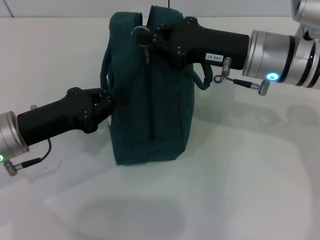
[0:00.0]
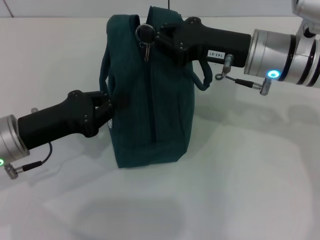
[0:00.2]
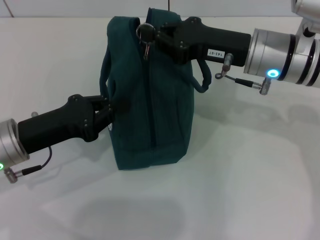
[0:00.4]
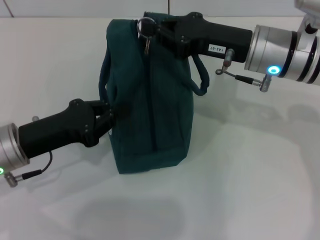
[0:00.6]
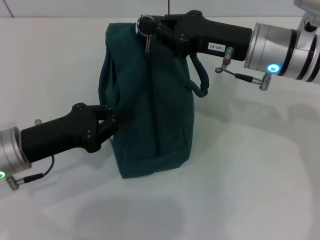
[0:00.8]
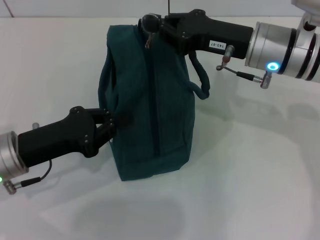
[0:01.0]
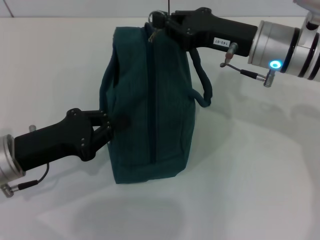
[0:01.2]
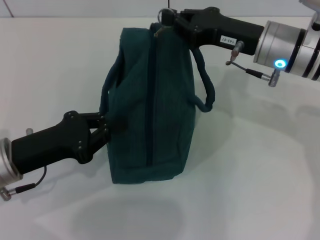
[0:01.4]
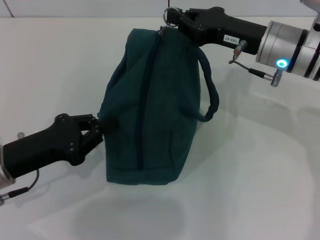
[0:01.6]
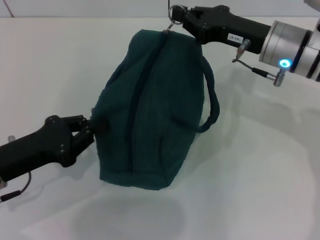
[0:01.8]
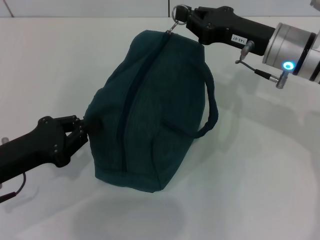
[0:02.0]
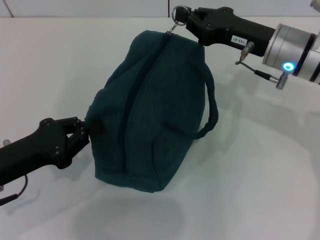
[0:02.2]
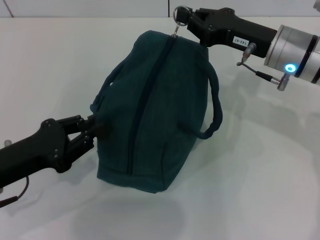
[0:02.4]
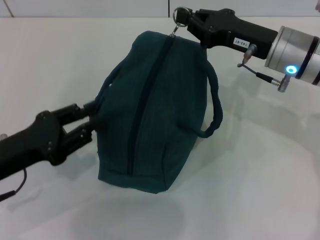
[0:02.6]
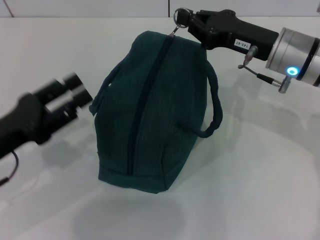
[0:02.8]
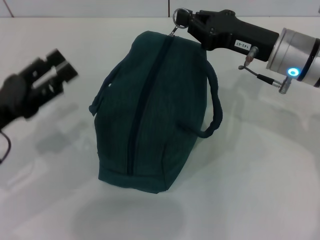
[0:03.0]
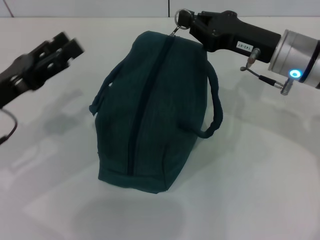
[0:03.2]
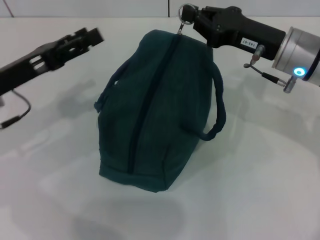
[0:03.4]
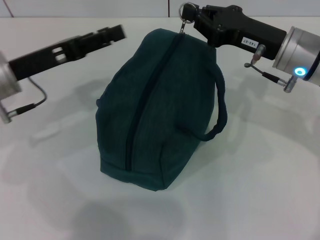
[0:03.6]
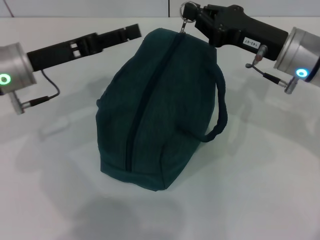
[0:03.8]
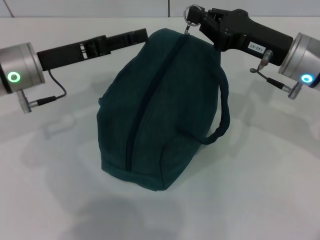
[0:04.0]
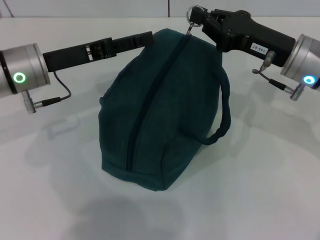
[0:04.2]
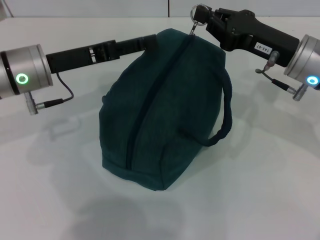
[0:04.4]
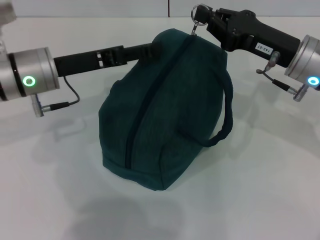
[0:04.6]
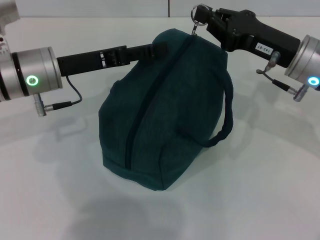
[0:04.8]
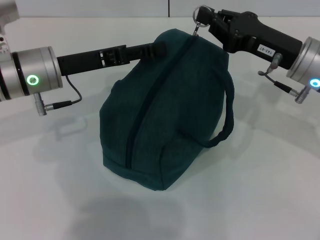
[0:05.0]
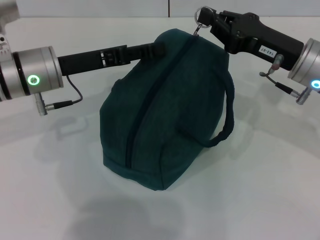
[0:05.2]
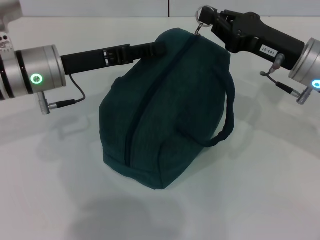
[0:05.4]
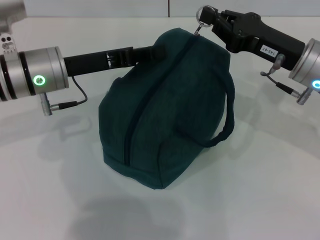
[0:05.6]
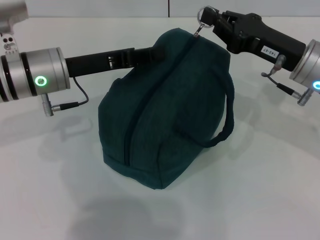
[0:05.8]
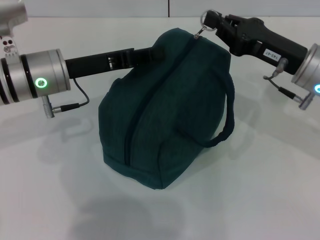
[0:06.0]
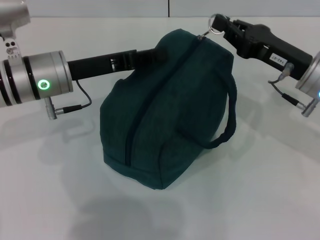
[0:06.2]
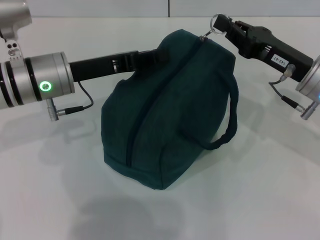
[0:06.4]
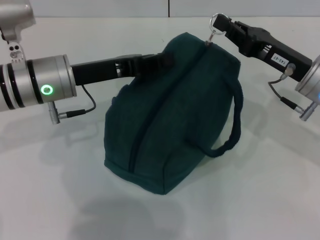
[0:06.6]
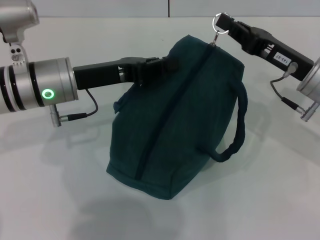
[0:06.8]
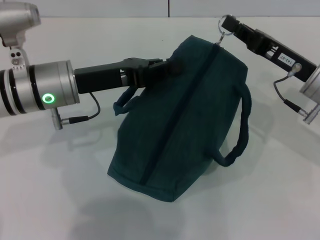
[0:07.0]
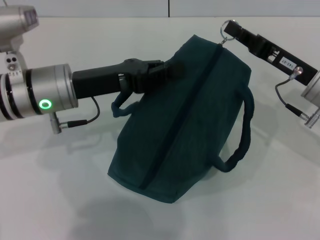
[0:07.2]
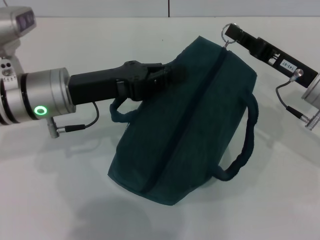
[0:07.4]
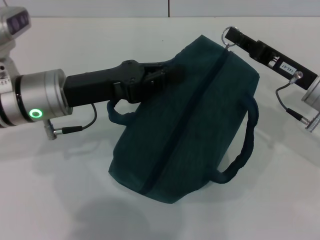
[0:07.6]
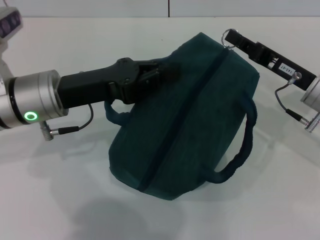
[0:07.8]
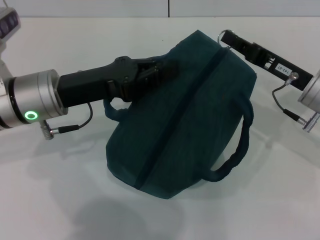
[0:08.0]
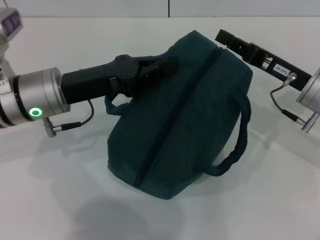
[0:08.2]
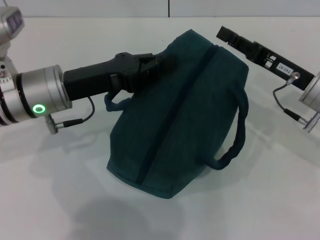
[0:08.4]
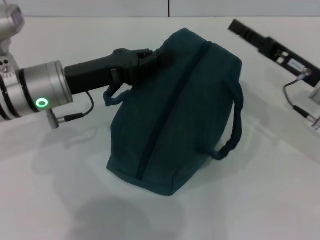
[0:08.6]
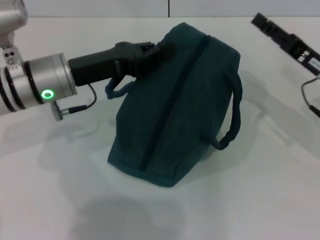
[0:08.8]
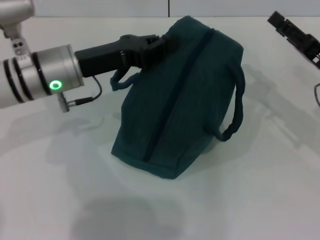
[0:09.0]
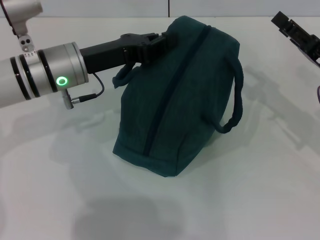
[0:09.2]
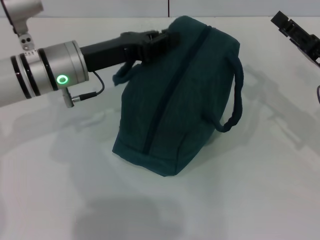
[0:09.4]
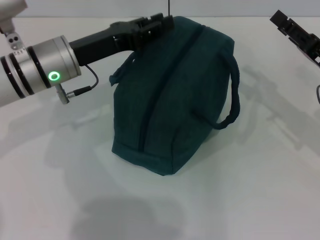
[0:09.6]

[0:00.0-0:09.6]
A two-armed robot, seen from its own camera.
Step, 0:00.0 to 0:08.2: Zip up the lunch bag with your right hand.
Step, 0:08.6 to 0:09.6: Hold the lunch bag with your left hand.
0:01.6 to 0:03.2: The left gripper changes place by approximately 5 cm, and opens its fingers.
0:03.2 to 0:04.8: The left gripper shifts roughly 10 cm forward and to the right.
0:04.8 to 0:06.4: The left gripper closes its fingers.
0:08.0 to 0:09.6: The right gripper goes about 5 cm to the right, and opens.

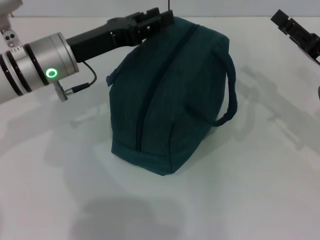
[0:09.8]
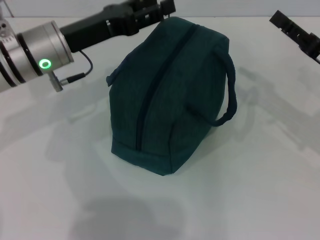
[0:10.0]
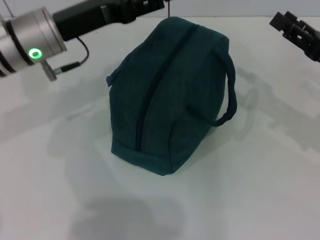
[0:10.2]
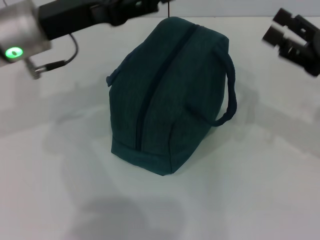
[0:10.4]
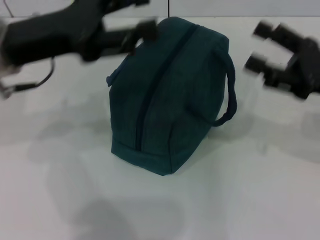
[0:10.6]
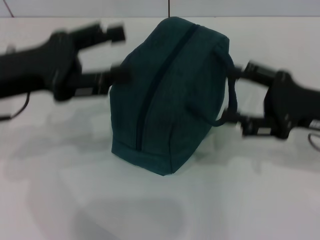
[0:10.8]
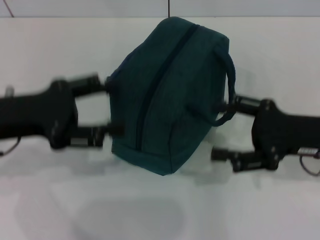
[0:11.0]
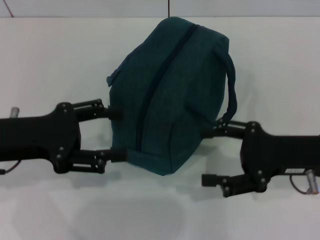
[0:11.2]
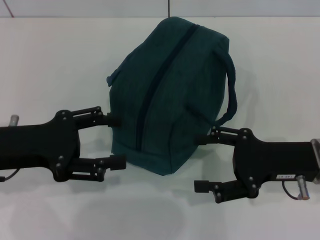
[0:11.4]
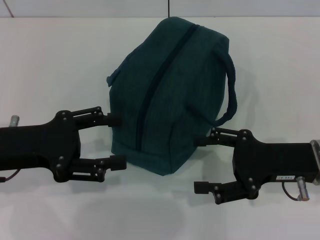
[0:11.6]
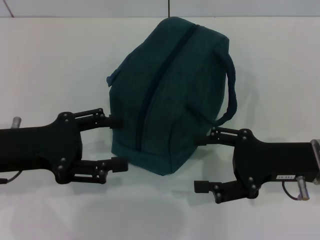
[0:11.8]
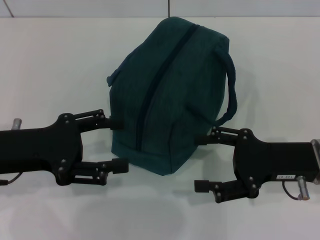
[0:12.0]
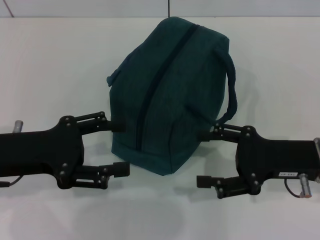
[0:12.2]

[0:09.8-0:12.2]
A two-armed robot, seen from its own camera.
0:09.8 to 0:11.0: The left gripper moves backward and to the left, roughly 15 cm, and opens its fingers; the right gripper ends up approximately 5 cm from where it was.

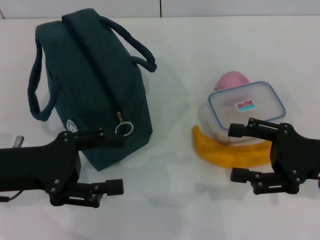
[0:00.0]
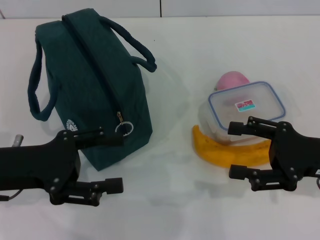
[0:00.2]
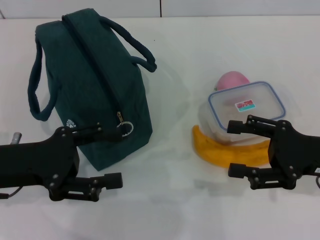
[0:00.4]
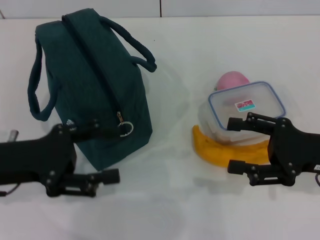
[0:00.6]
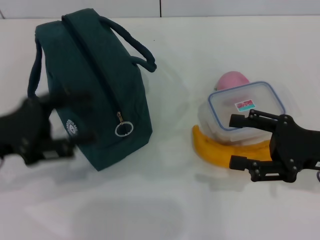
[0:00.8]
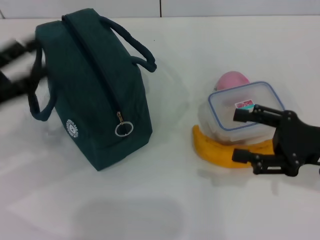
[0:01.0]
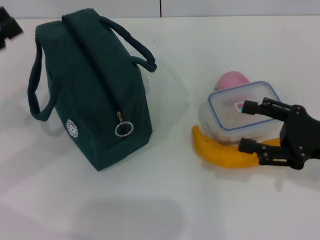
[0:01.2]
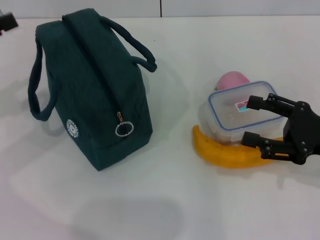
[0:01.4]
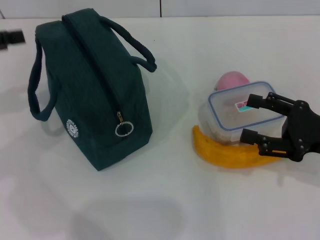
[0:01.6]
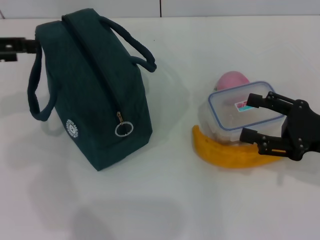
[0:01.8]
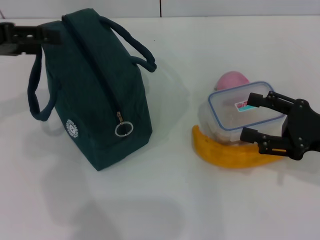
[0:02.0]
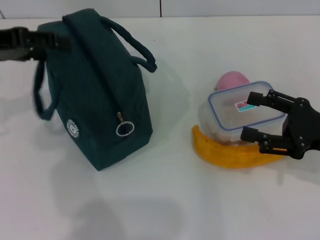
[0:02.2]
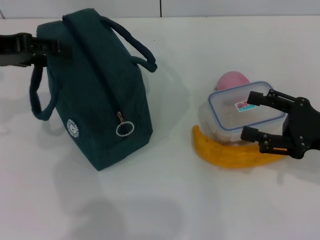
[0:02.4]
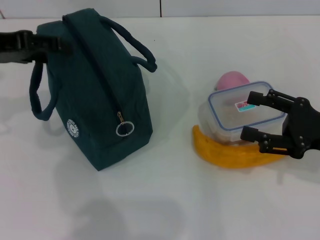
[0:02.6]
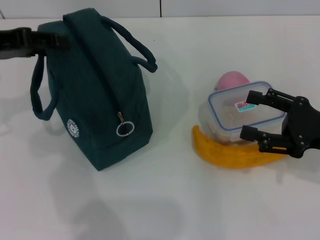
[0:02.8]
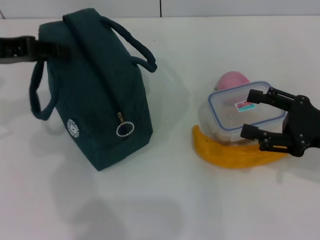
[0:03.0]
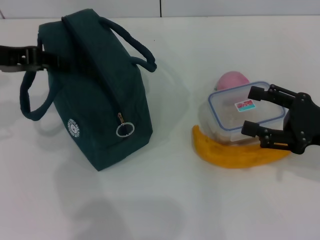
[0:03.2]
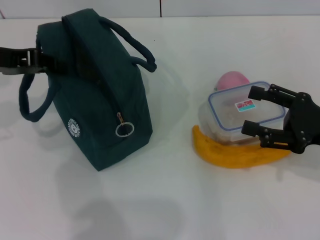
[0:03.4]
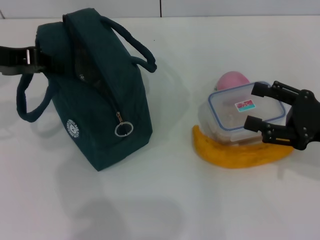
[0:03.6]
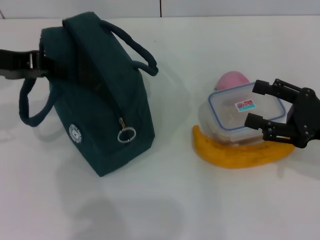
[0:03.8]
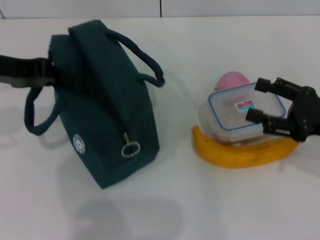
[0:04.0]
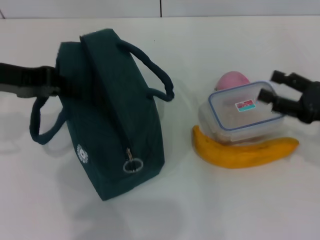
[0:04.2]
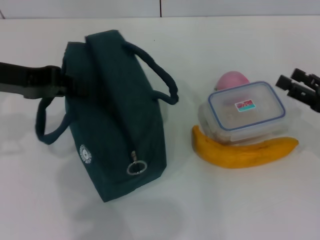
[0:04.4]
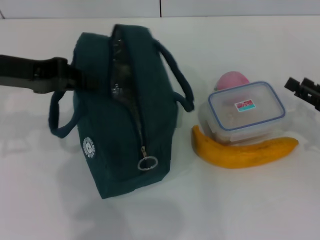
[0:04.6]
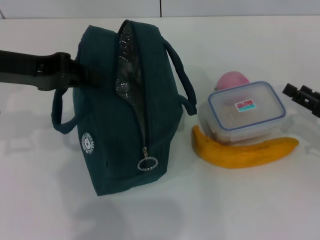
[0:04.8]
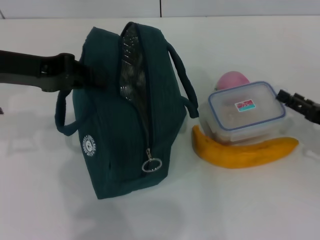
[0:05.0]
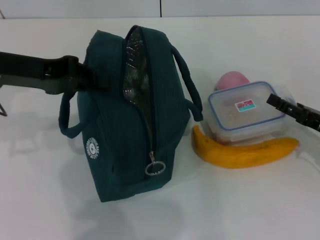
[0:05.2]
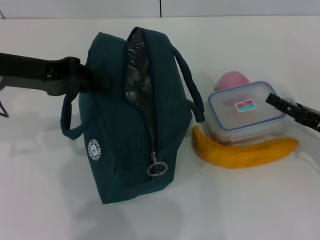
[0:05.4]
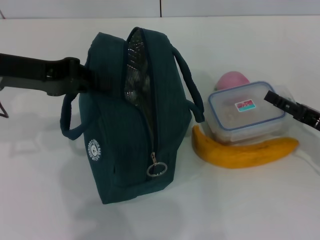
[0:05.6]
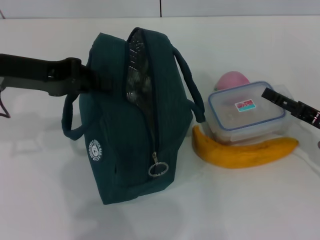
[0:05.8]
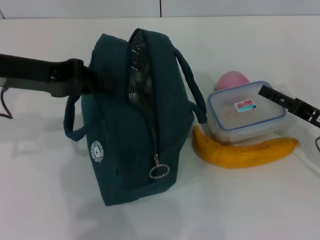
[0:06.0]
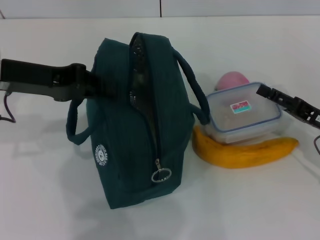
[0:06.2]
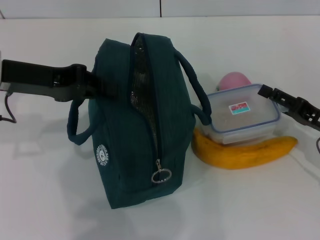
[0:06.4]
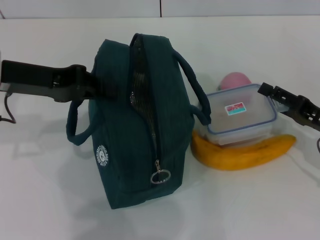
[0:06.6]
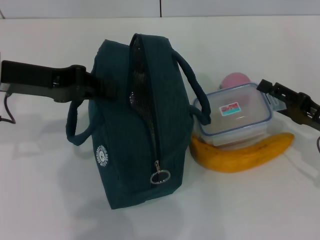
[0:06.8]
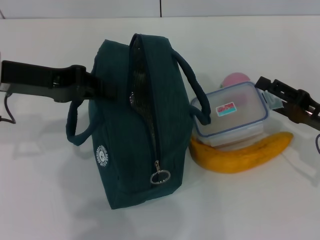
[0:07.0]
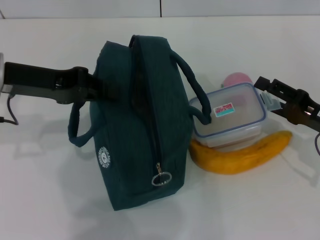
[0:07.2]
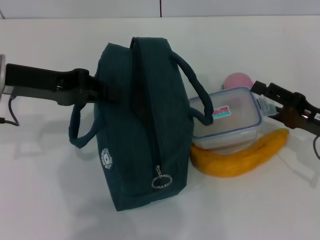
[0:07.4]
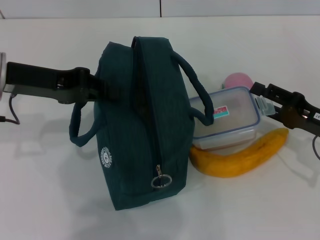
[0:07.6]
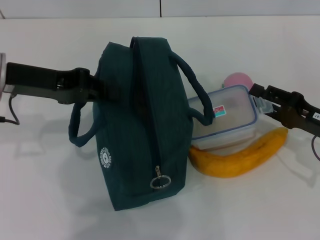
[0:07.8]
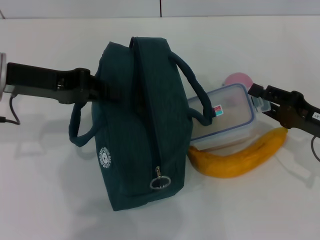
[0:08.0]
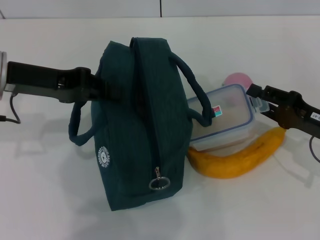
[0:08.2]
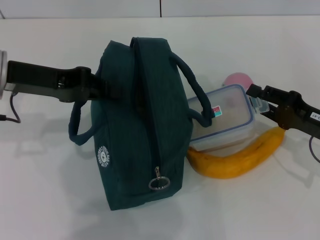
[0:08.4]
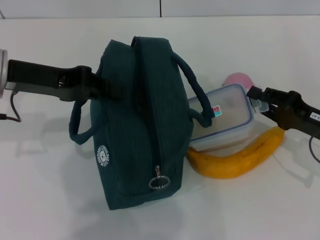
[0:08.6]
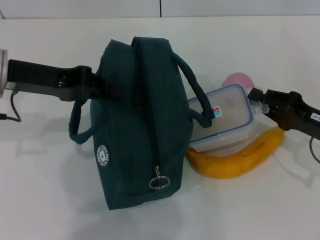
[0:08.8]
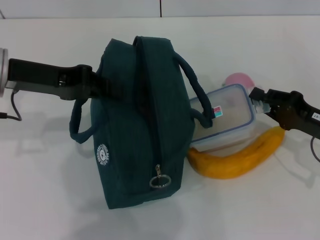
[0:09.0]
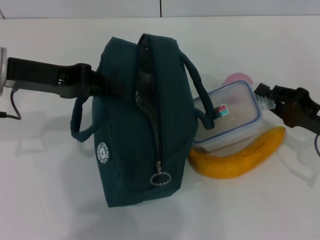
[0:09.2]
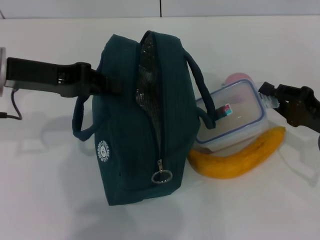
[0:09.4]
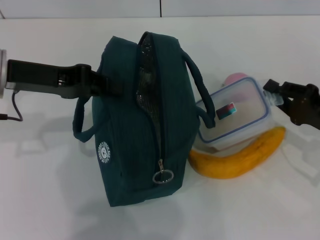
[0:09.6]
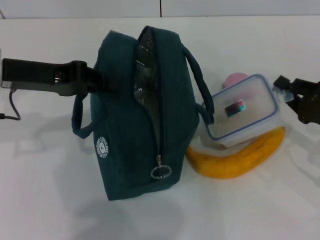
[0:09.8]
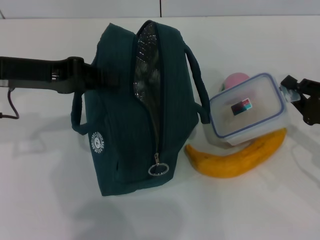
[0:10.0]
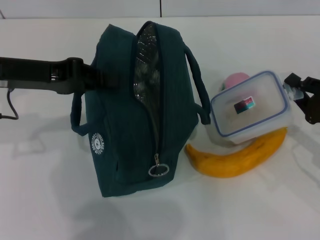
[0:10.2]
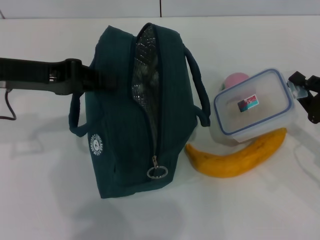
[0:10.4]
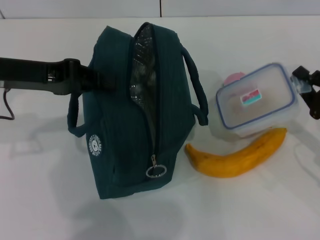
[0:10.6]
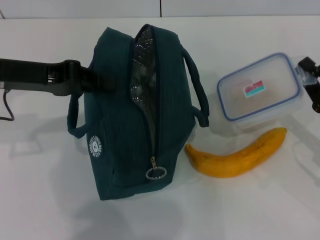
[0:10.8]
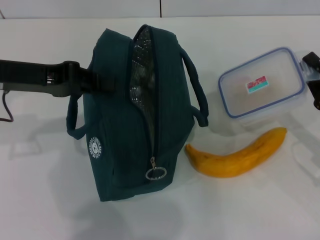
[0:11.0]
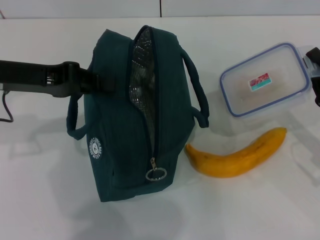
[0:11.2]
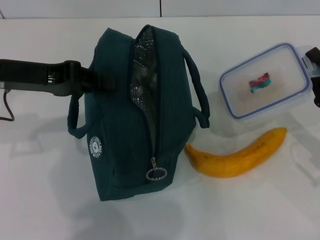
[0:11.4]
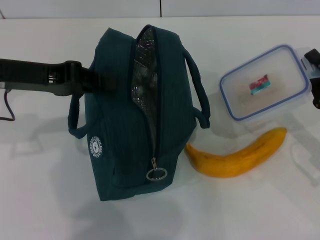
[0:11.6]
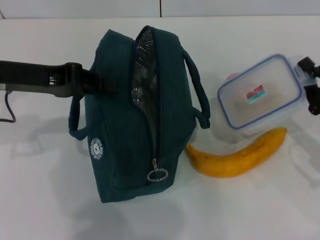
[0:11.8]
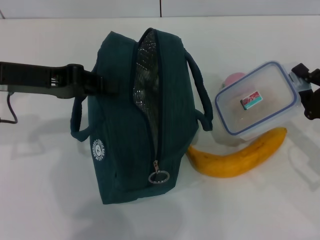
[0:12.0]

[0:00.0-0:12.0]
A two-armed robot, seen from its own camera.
Step, 0:00.0 to 0:05.0: Hold the lunch bag with your left hand.
Step, 0:05.2 to 0:08.8: Pick up the lunch box with your right hand.
0:00.0 to 0:01.6: The left gripper moves upward, to the left and forward, roughly 15 cm.
0:01.6 to 0:03.0: The left gripper moves to the right, approximately 5 cm.
0:03.0 to 0:04.4: The left gripper closes.
0:07.6 to 0:09.0: The right gripper closes its fingers.
0:09.0 to 0:10.4: The grippers make only small movements.
0:10.4 to 0:12.0: The grippers stay close to where they were, moving slightly.
